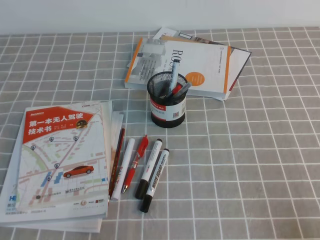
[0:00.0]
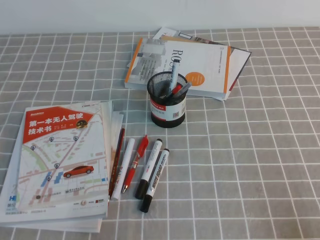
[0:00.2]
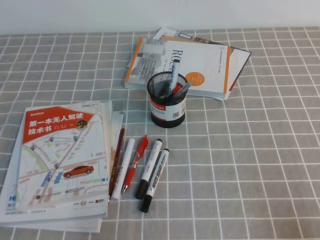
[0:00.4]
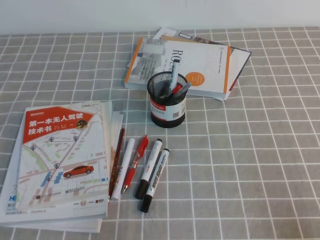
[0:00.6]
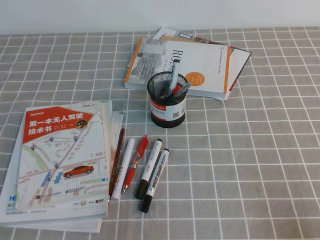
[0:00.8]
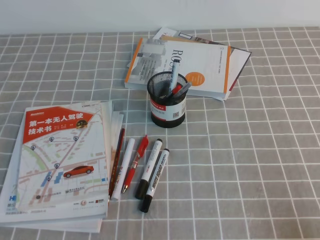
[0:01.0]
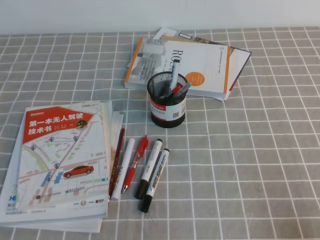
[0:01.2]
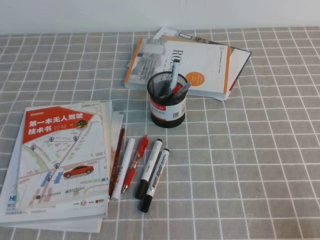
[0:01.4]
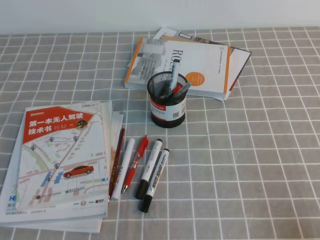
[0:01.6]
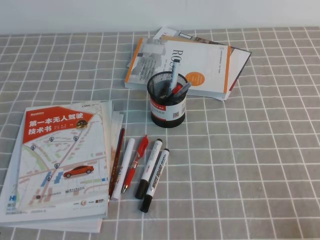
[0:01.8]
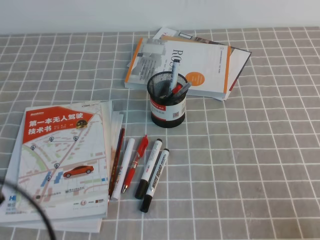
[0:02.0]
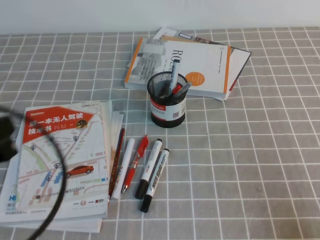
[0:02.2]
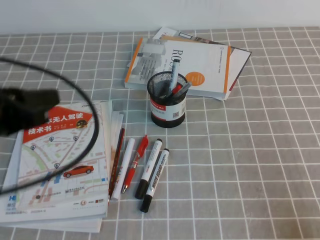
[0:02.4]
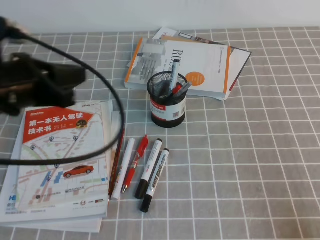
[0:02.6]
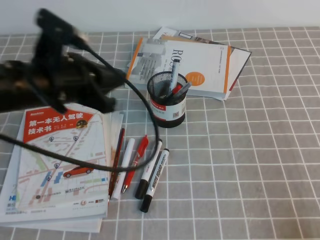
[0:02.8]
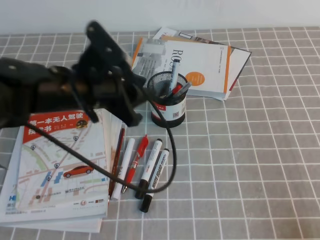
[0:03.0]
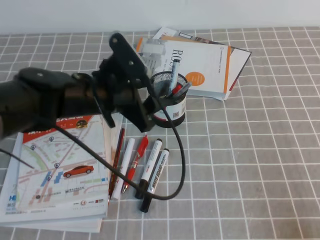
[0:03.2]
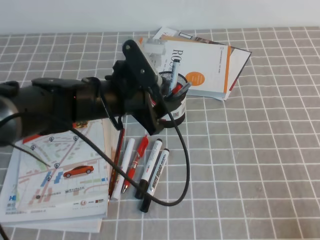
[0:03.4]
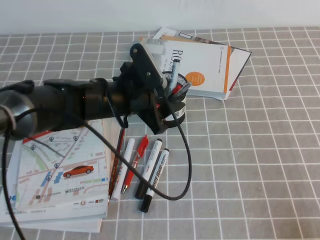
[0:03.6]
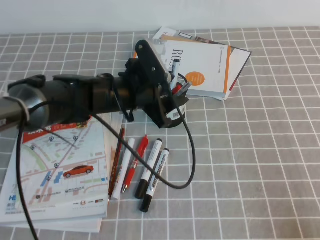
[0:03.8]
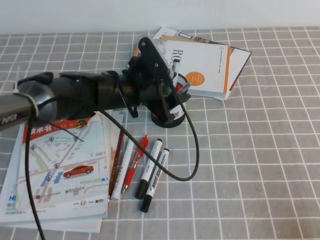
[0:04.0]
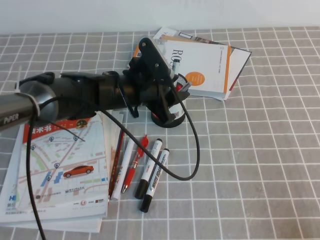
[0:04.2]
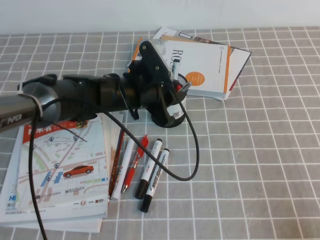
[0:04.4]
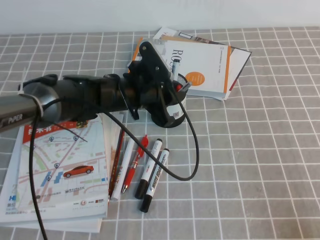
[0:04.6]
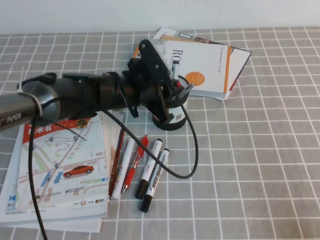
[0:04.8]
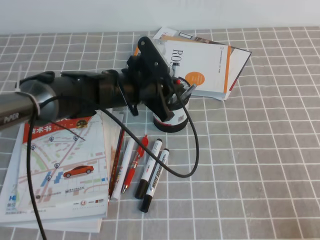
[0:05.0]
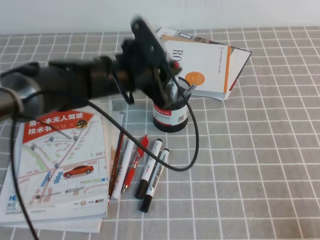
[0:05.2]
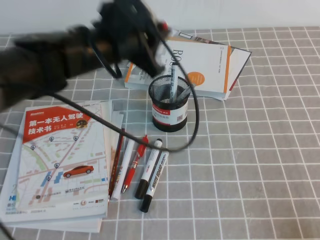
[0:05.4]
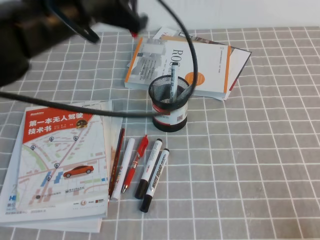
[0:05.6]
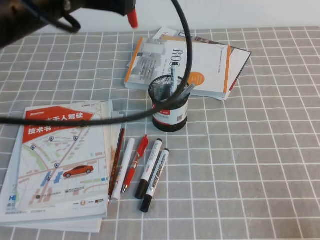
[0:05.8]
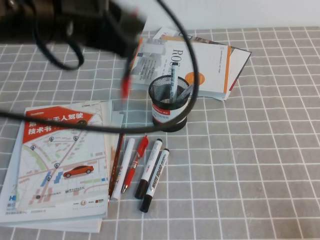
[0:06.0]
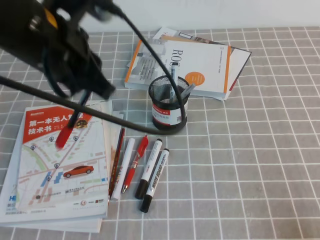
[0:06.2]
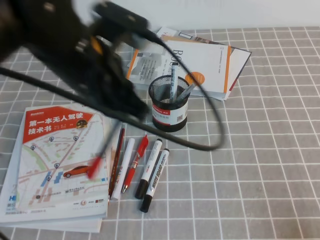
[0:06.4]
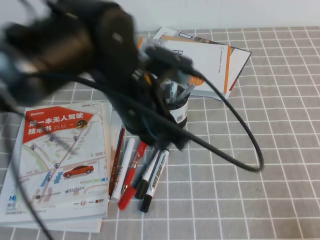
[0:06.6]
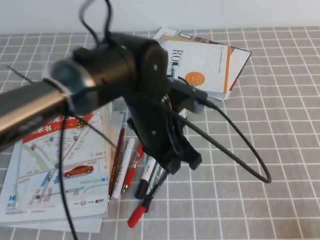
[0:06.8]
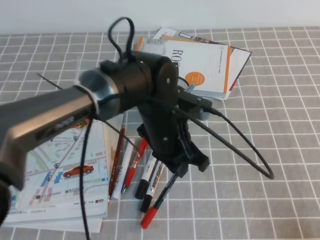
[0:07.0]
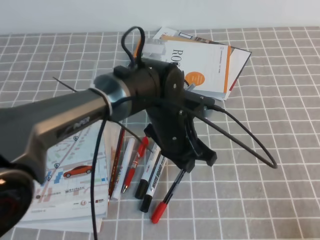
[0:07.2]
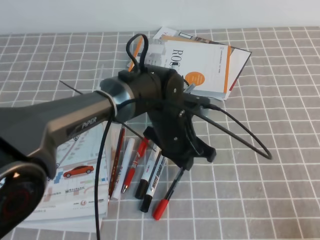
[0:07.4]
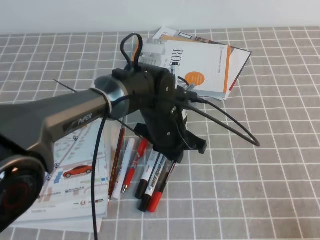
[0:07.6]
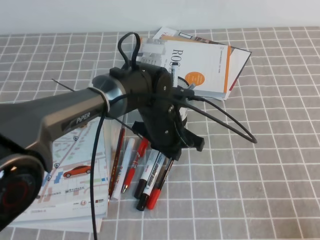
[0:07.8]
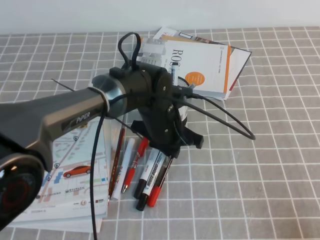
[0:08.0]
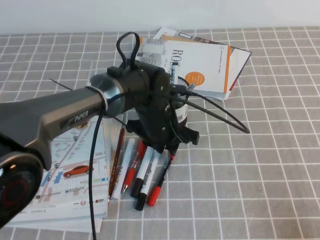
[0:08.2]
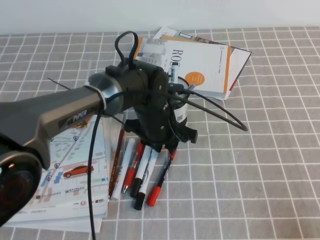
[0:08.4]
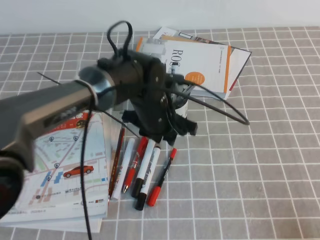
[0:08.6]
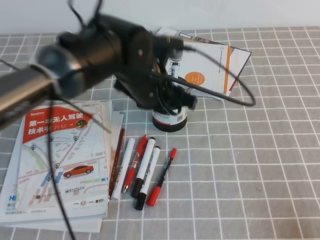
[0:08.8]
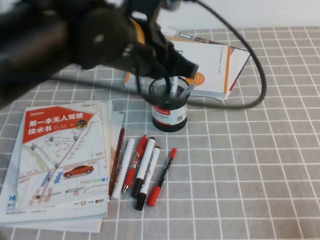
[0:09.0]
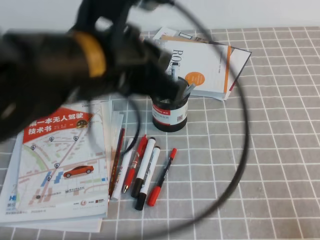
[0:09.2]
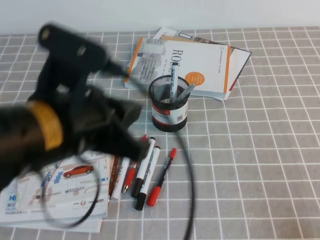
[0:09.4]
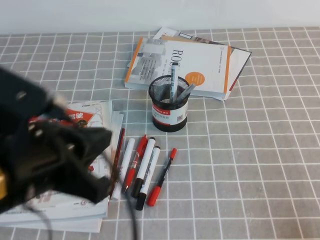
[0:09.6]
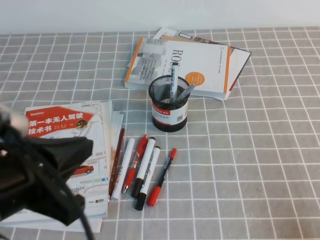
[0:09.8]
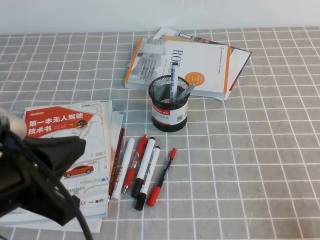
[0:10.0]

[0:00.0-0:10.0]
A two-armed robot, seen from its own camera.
0:01.4 to 0:02.8: The left gripper goes approximately 25 cm forward, to the right and upward.
0:02.8 to 0:04.2: The left gripper goes some 15 cm to the right, downward and forward, and opens its fingers.
0:04.2 to 0:05.8: The left gripper shifts roughly 20 cm upward and backward, and closes.
0:05.8 to 0:07.2: The left gripper heads downward and to the right, covering roughly 25 cm.
0:08.6 to 0:10.0: The left gripper travels backward, to the left and upward by some 30 cm, and closes up.

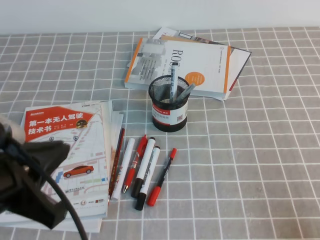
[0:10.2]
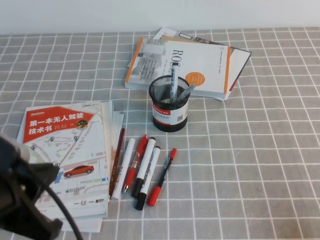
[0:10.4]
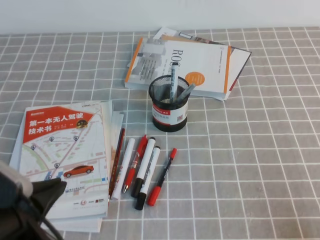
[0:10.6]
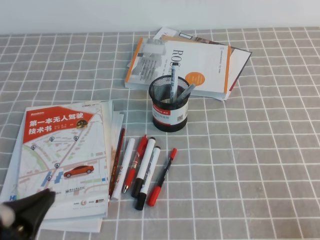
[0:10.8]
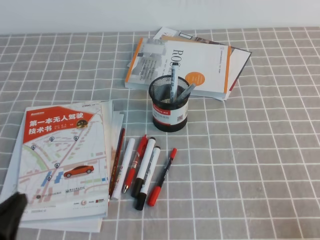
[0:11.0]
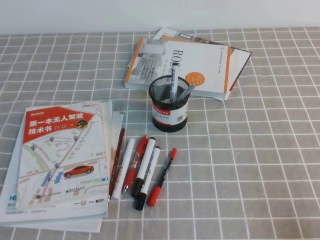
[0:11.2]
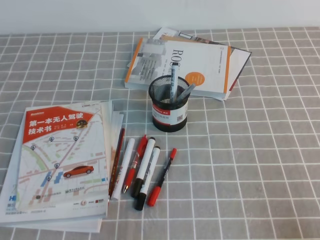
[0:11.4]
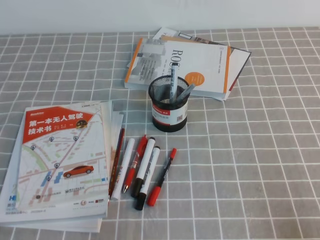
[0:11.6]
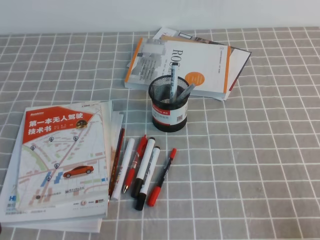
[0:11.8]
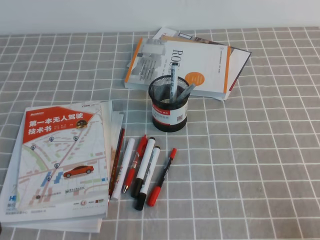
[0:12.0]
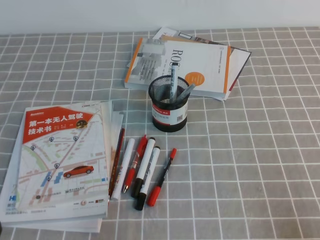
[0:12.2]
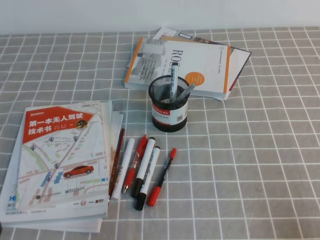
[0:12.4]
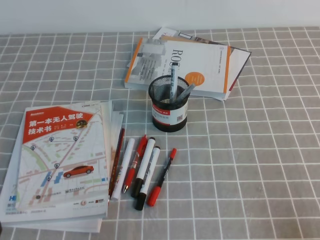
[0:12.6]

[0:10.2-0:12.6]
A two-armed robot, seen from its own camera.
Step, 0:10.2 to 0:12.6: Pick up the pen from the pen holder.
0:10.2 to 0:11.4: The left gripper heads downward and to the left, covering roughly 15 cm.

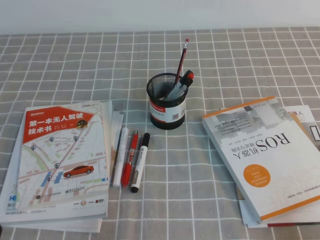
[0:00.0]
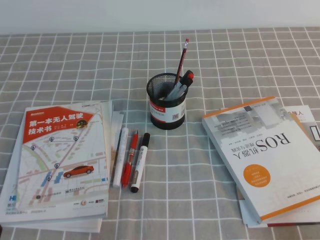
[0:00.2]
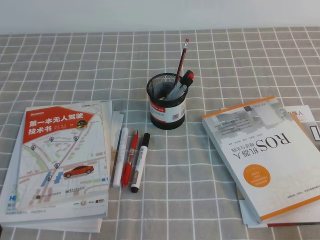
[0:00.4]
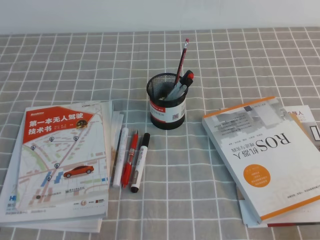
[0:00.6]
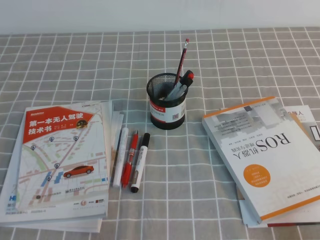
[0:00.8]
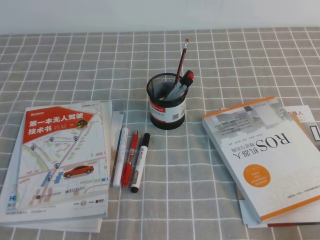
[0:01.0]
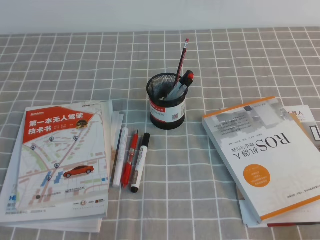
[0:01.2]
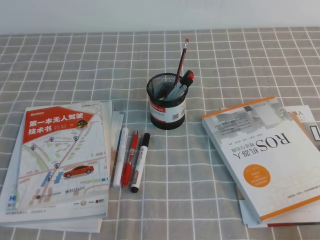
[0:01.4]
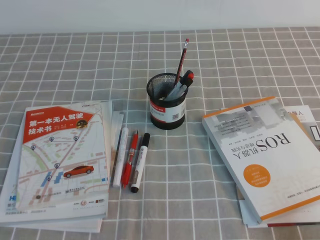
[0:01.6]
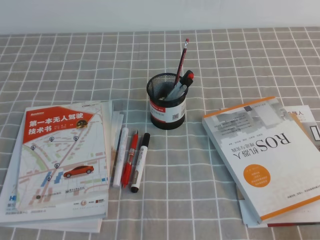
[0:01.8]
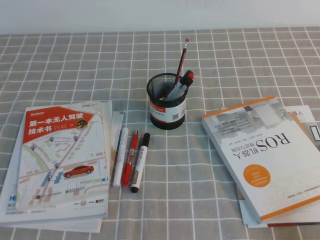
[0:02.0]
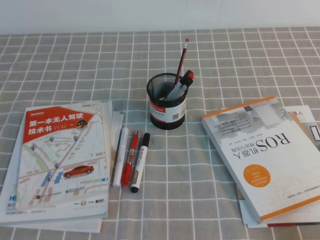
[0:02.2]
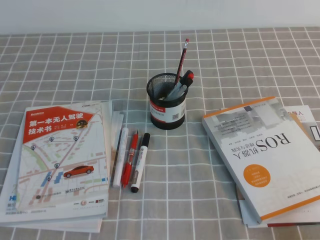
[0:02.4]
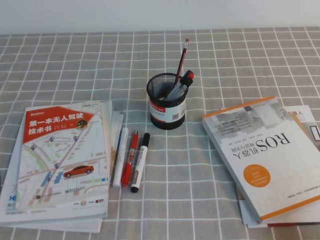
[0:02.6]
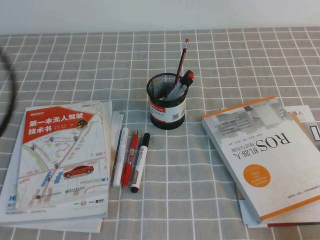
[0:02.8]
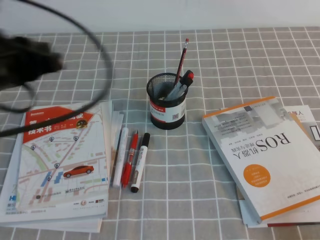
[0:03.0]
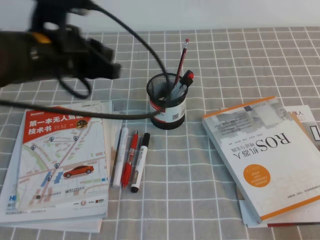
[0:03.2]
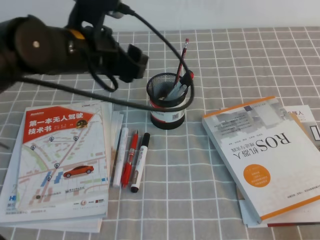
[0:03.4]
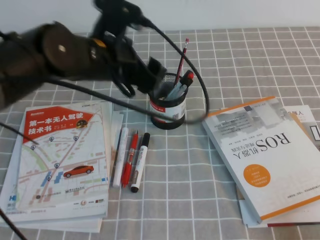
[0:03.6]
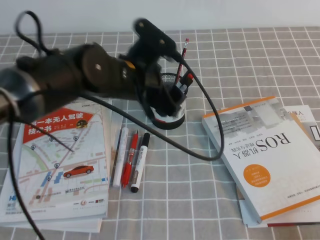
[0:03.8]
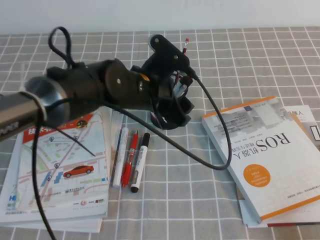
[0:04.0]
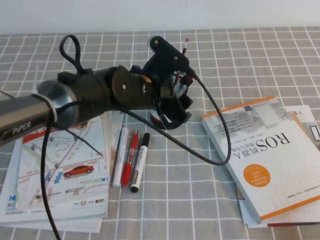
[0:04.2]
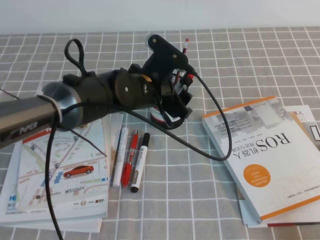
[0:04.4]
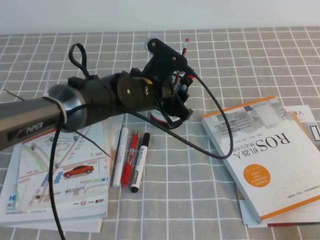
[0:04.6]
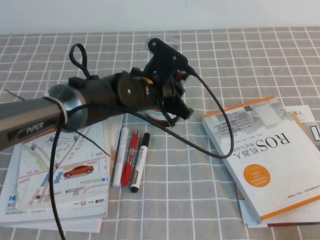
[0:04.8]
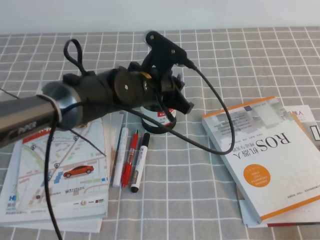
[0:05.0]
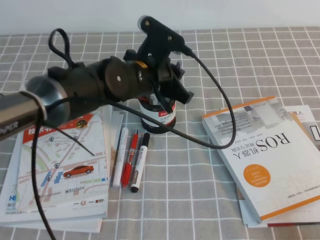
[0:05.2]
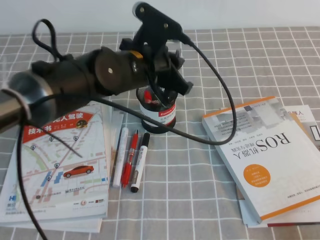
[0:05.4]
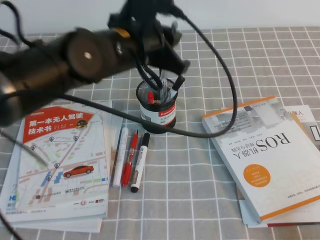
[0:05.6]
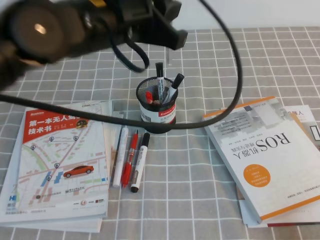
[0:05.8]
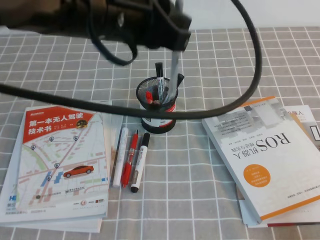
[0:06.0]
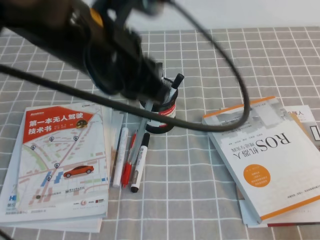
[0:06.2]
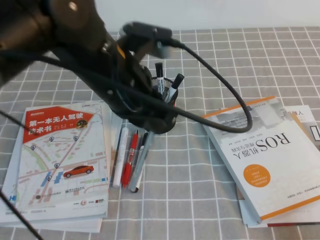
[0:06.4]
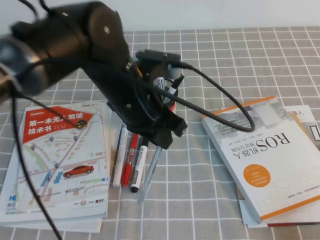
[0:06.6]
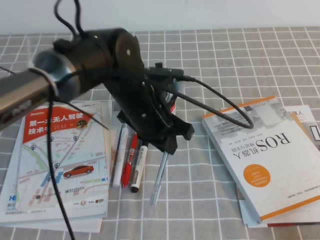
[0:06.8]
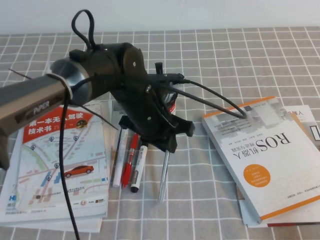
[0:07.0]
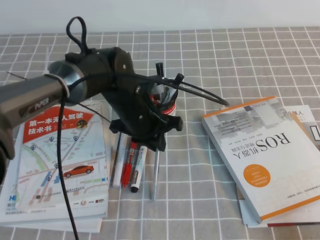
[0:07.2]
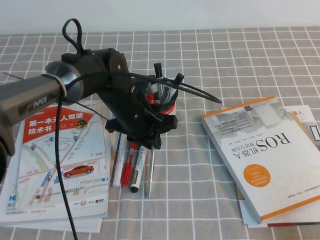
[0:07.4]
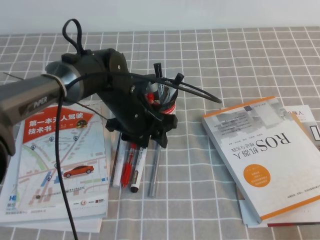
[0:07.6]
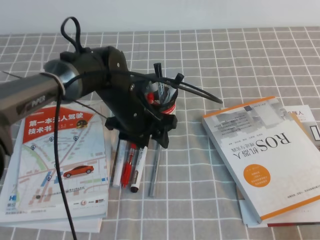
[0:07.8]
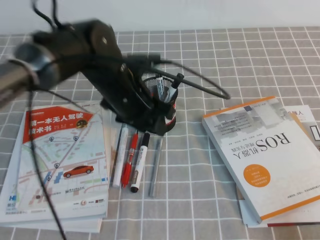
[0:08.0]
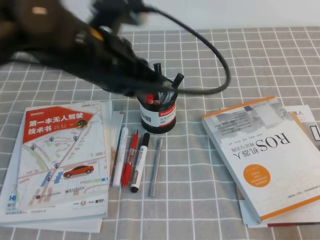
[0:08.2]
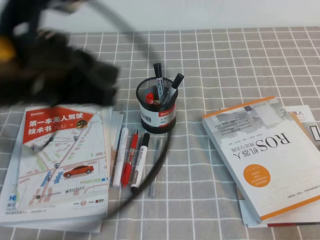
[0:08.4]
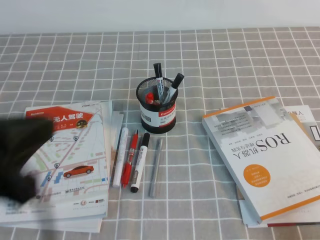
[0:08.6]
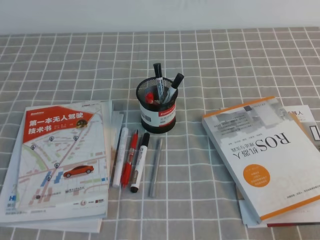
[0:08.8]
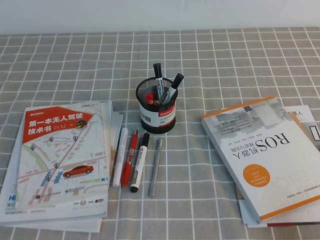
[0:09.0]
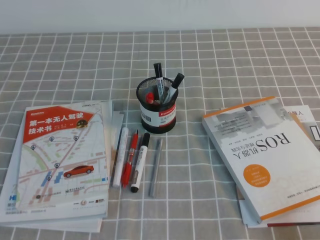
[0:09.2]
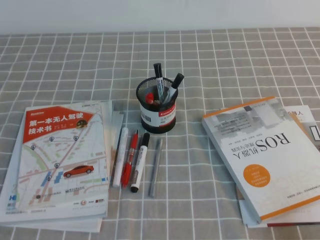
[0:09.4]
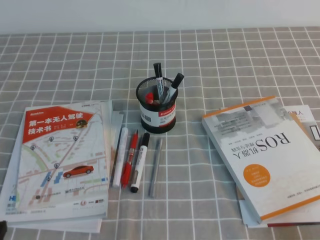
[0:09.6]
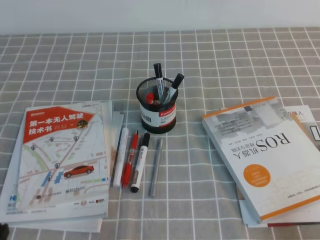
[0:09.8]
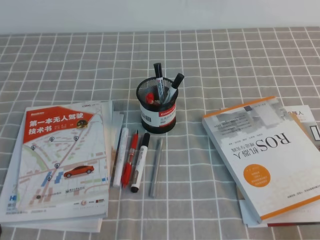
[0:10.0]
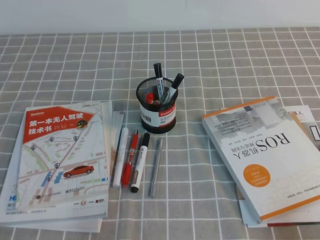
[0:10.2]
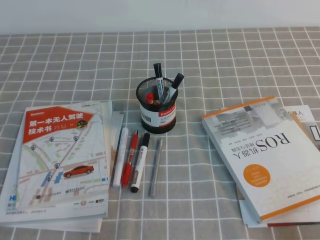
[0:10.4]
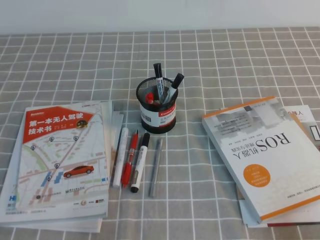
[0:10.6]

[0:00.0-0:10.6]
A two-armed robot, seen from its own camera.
Step, 0:00.0 to 0:10.6: Pick up the pen from the pen holder.
0:01.6 to 0:03.0: The left gripper moves upward and forward, some 25 cm.
0:03.0 to 0:04.6: The left gripper goes some 25 cm to the right, downward and forward, and opens up.
0:04.6 to 0:06.0: The left gripper is displaced upward and backward by about 20 cm, and closes up.
0:06.0 to 0:07.6: The left gripper moves downward and forward, about 25 cm, and opens.
0:07.6 to 0:09.0: The left gripper travels backward and to the left by approximately 40 cm, and closes.
